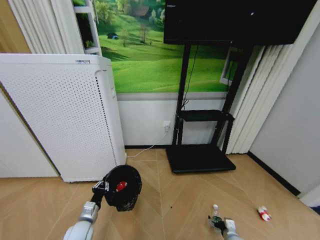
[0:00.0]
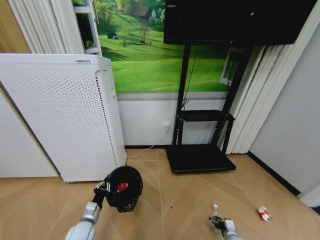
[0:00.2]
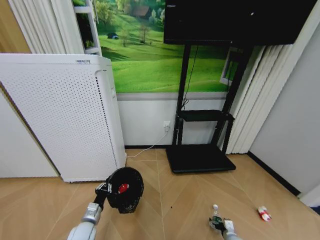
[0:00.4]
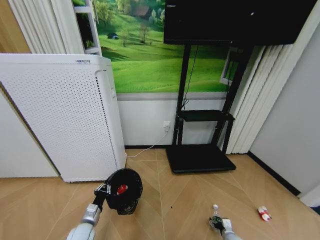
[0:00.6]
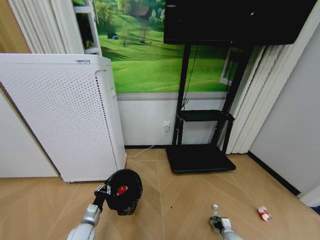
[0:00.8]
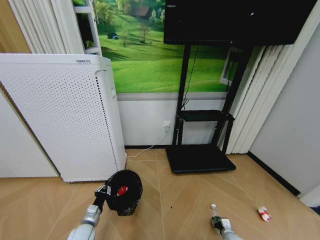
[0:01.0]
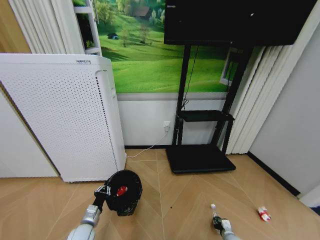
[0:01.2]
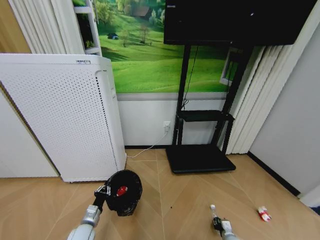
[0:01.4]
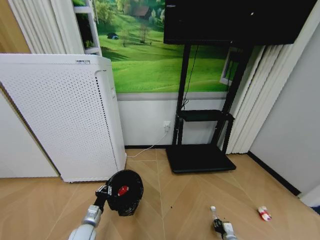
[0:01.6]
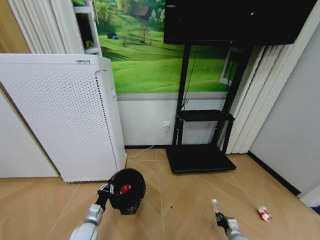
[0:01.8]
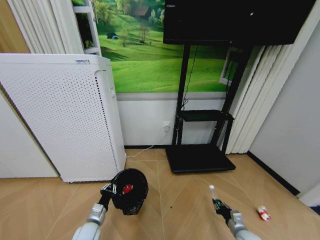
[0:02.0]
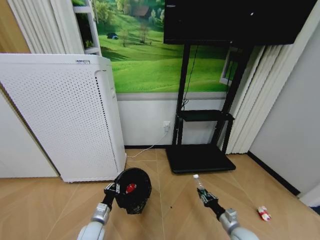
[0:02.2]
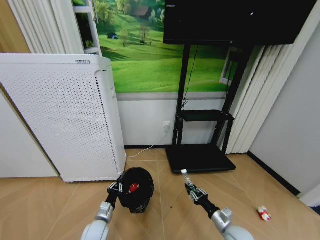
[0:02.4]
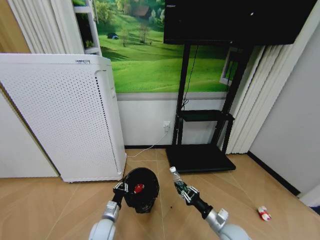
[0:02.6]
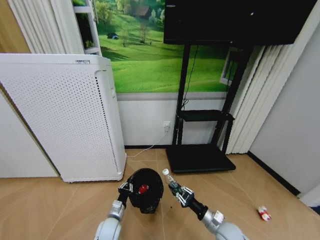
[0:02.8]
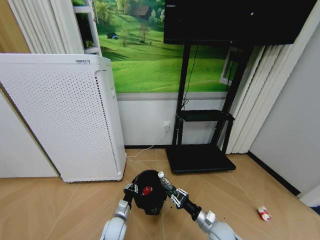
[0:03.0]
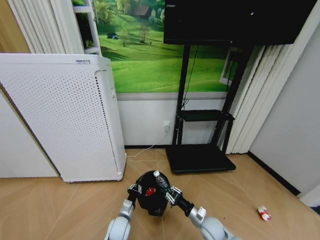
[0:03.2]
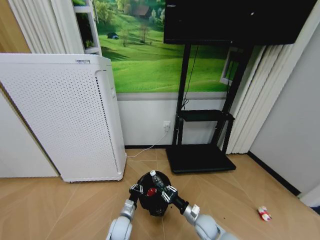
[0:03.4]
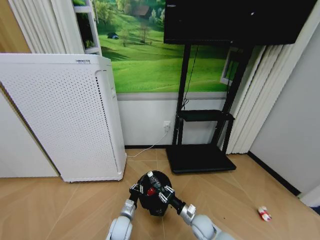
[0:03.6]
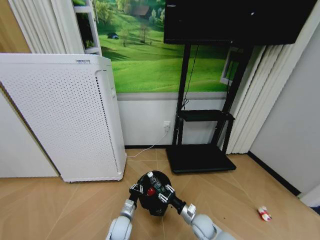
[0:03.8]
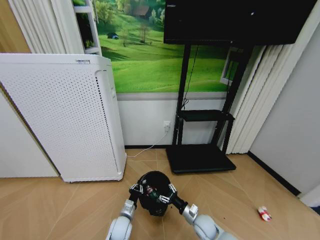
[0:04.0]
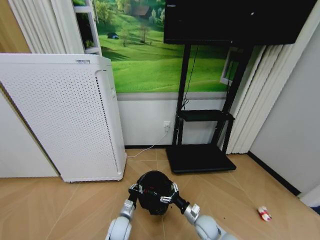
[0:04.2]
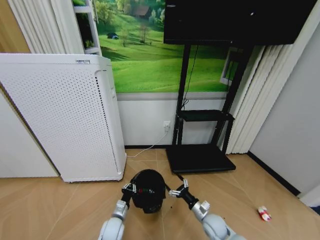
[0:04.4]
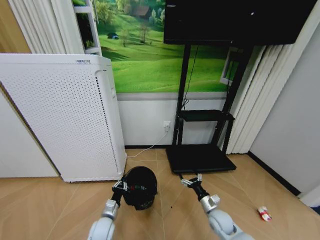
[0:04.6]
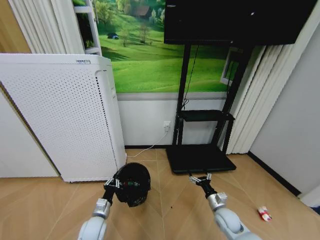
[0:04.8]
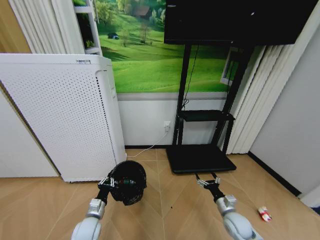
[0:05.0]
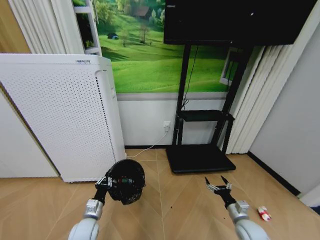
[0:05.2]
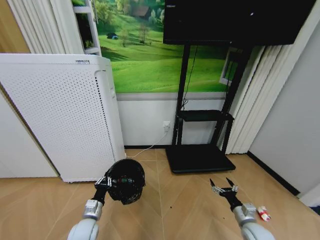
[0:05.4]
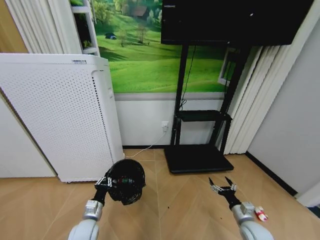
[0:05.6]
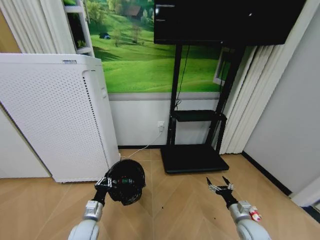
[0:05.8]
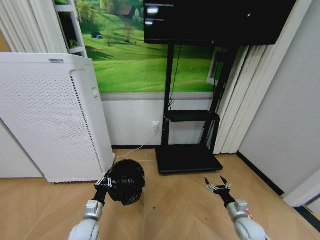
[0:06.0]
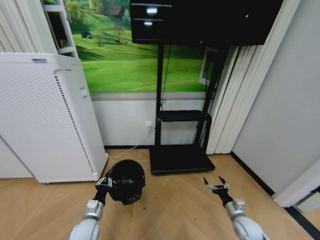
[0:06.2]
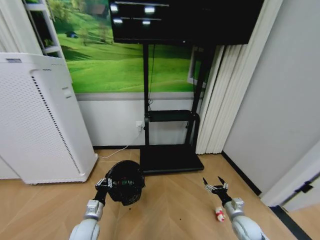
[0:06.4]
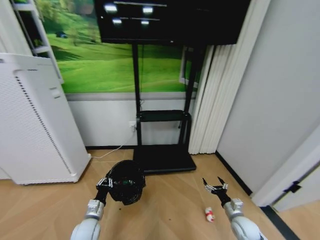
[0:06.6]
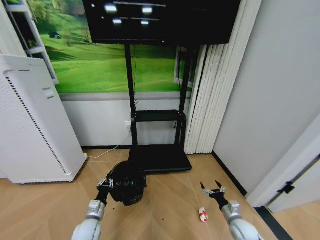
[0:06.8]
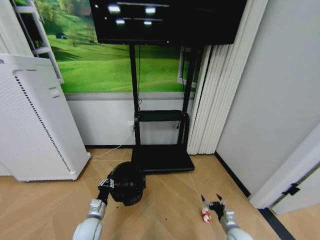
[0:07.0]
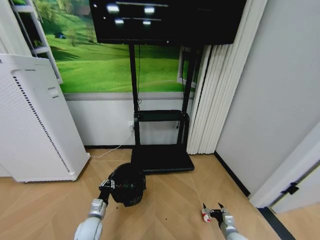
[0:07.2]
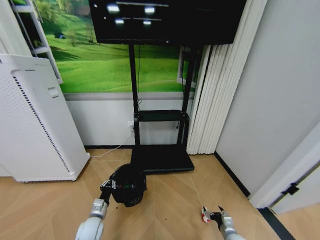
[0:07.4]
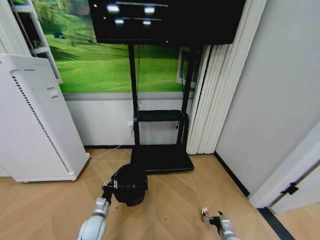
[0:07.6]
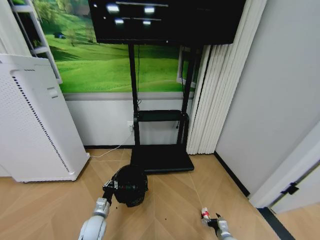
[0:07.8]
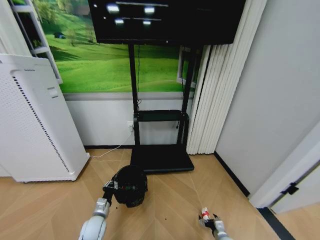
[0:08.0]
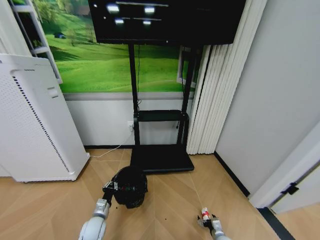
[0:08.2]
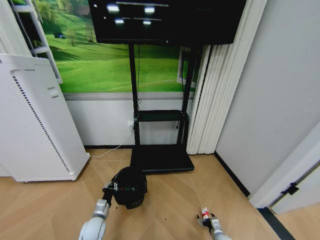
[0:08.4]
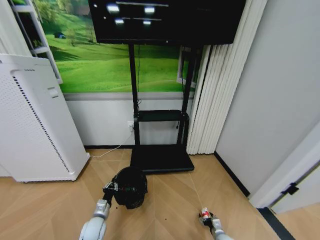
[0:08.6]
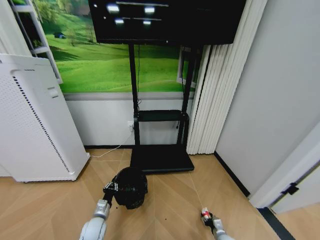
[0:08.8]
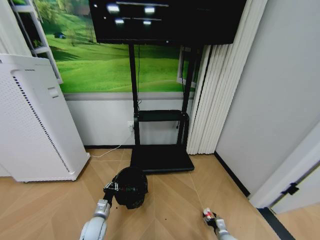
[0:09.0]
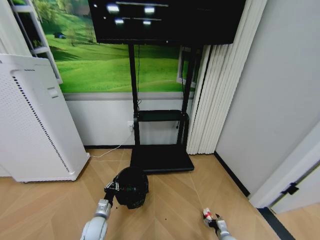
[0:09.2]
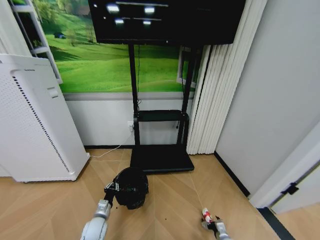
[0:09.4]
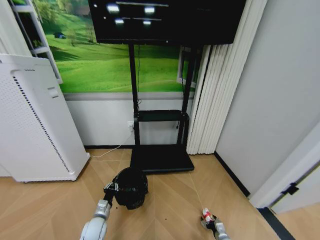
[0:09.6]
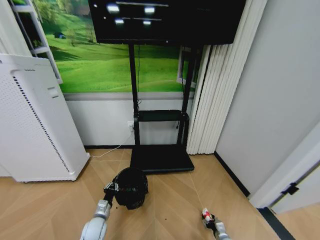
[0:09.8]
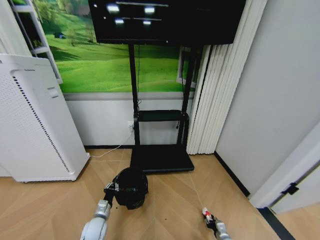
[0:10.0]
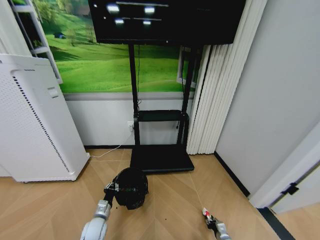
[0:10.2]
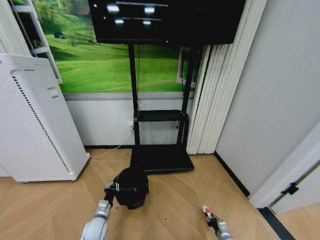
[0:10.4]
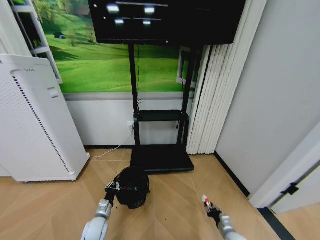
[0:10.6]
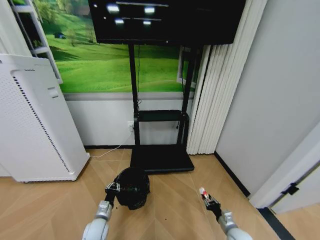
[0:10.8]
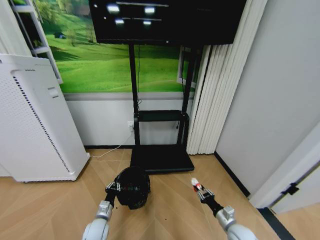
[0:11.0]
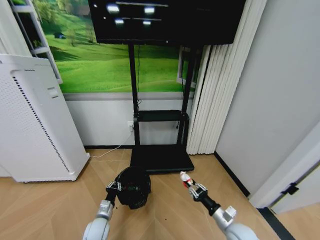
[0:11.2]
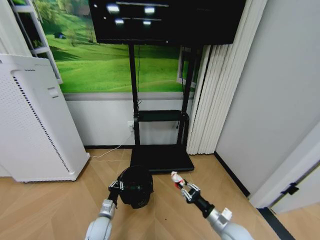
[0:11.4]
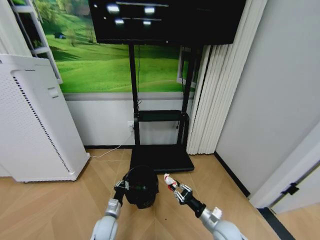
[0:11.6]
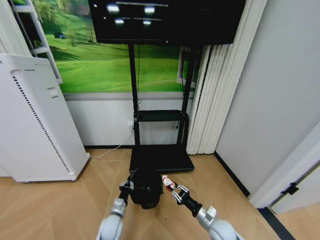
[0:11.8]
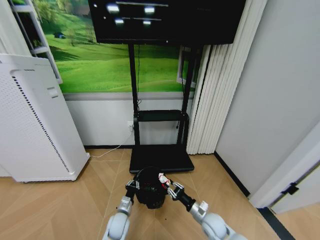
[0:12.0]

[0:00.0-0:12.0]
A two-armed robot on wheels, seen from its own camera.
Task of the whole recording: Pick up the trash bin and place the garbage on the floor into it.
0:00.0 to 0:01.6: The right gripper is displaced downward by some 5 cm, and closes its fingers.
0:01.6 to 0:03.0: The left gripper goes approximately 10 cm to the right. Meanwhile the right gripper shifts roughly 20 cm upward and to the left.
0:03.0 to 0:04.4: The right gripper opens.
0:04.4 to 0:06.0: The left gripper travels to the left and upward by about 10 cm, while the right gripper heads to the right, covering approximately 15 cm.
0:06.0 to 0:07.6: The right gripper travels downward by about 10 cm. Meanwhile the left gripper changes place by approximately 5 cm.
0:07.6 to 0:09.0: The right gripper ends up some 5 cm from where it was, and closes up.
0:09.0 to 0:10.4: The right gripper closes its fingers.
0:10.4 to 0:12.0: The left gripper heads to the right, covering about 10 cm; the right gripper is displaced upward and to the left by some 20 cm.

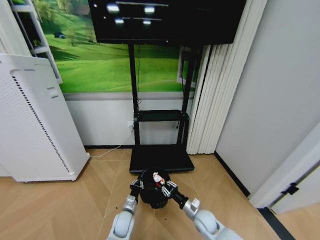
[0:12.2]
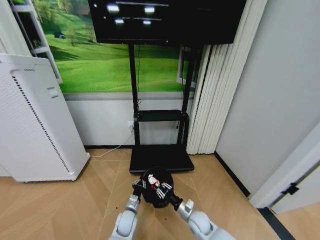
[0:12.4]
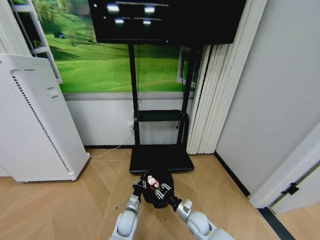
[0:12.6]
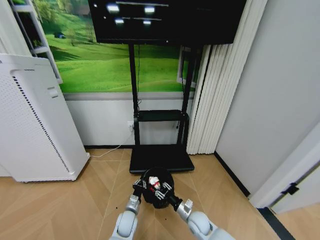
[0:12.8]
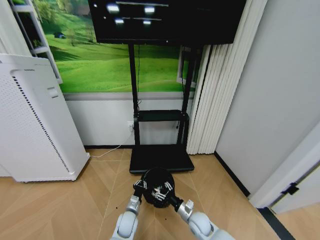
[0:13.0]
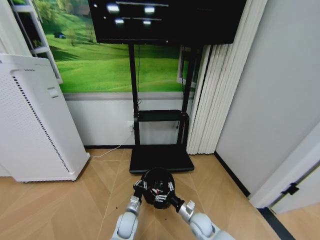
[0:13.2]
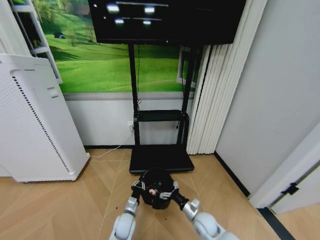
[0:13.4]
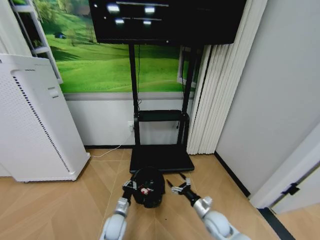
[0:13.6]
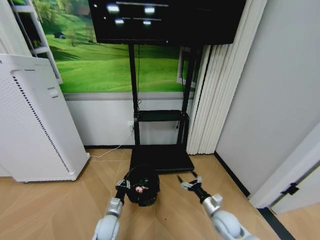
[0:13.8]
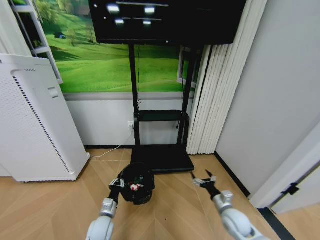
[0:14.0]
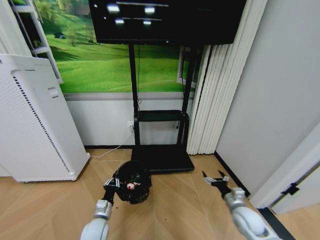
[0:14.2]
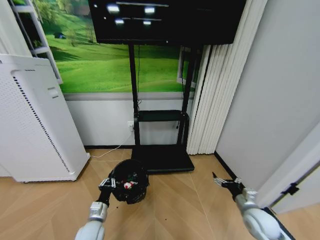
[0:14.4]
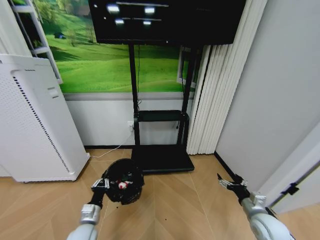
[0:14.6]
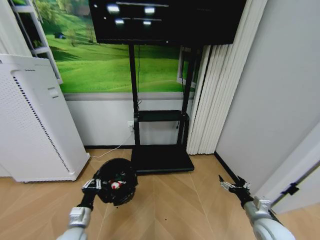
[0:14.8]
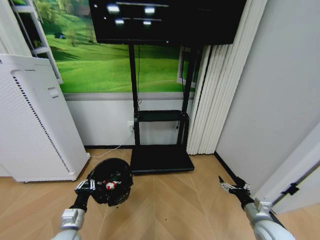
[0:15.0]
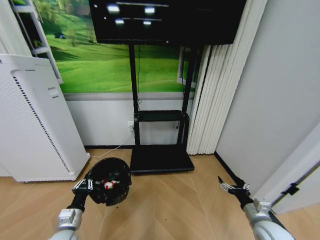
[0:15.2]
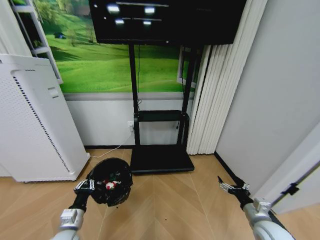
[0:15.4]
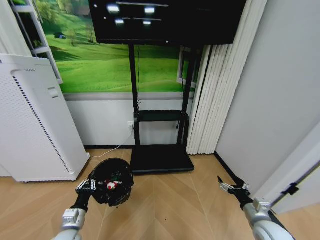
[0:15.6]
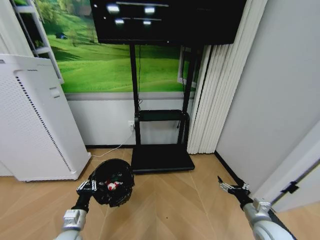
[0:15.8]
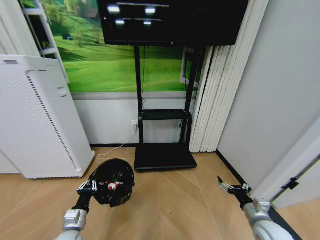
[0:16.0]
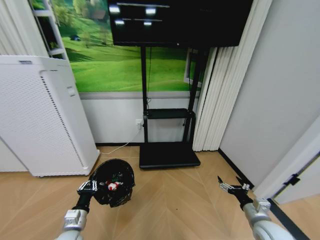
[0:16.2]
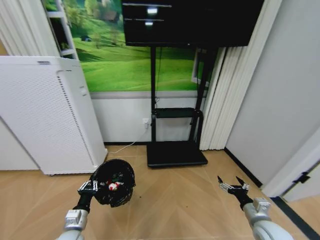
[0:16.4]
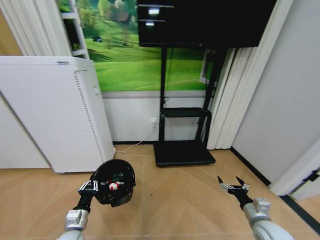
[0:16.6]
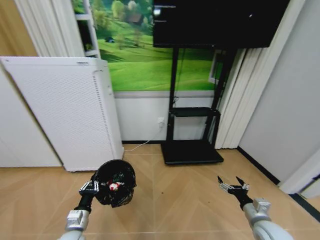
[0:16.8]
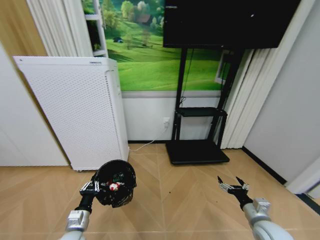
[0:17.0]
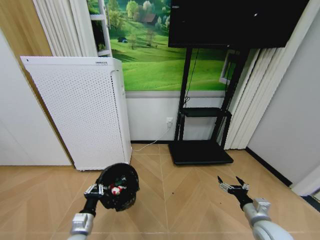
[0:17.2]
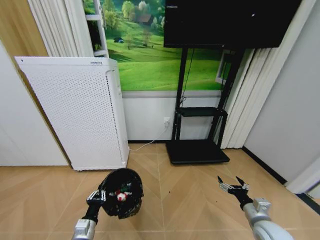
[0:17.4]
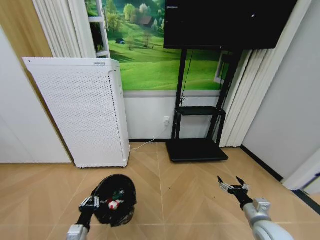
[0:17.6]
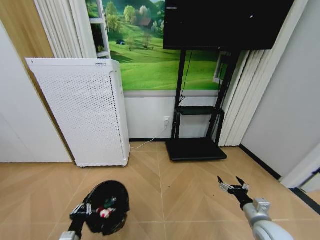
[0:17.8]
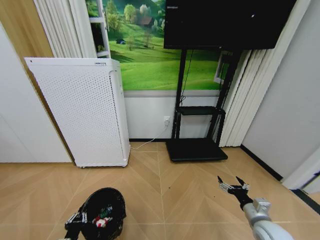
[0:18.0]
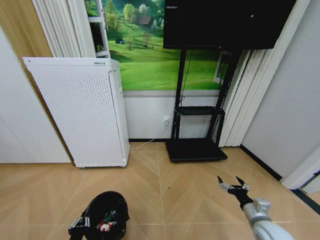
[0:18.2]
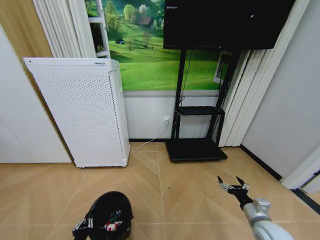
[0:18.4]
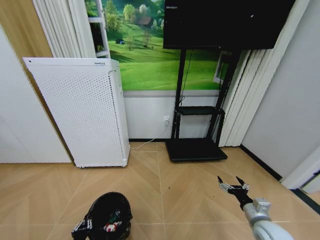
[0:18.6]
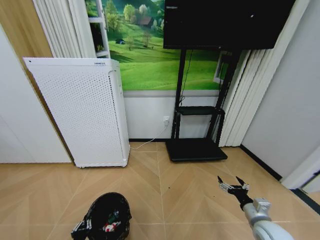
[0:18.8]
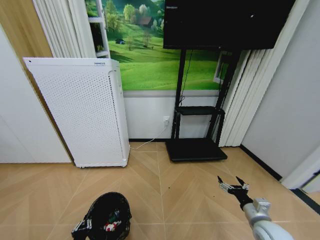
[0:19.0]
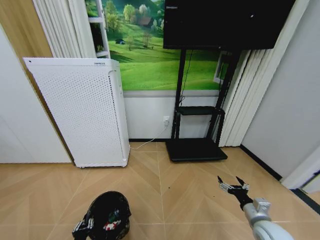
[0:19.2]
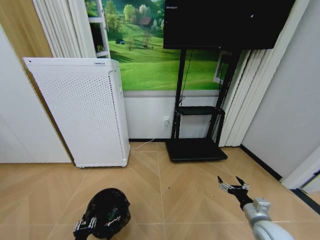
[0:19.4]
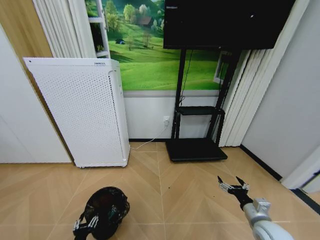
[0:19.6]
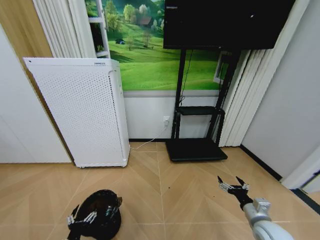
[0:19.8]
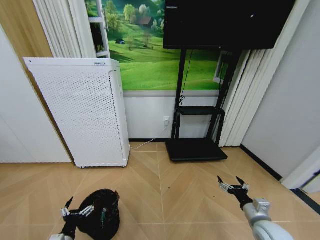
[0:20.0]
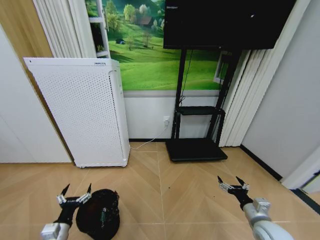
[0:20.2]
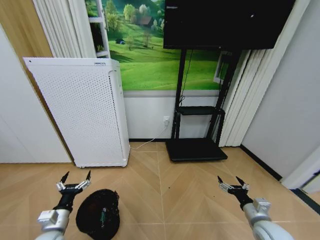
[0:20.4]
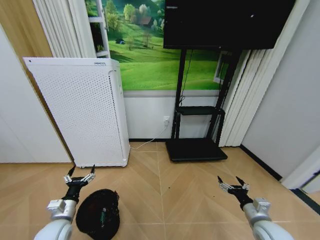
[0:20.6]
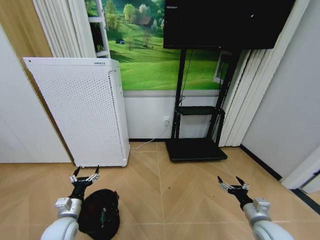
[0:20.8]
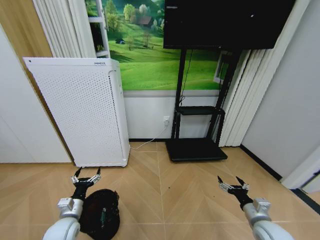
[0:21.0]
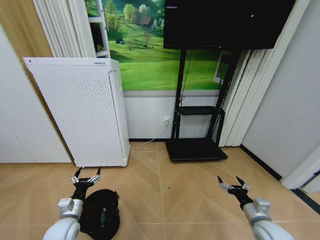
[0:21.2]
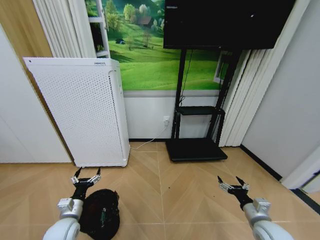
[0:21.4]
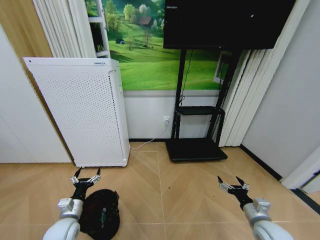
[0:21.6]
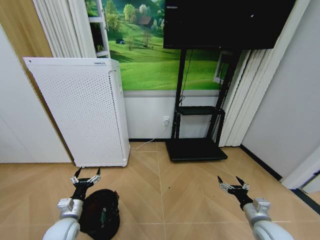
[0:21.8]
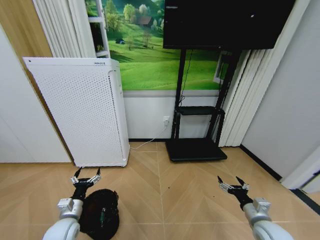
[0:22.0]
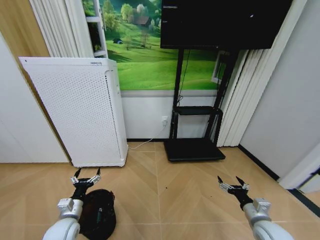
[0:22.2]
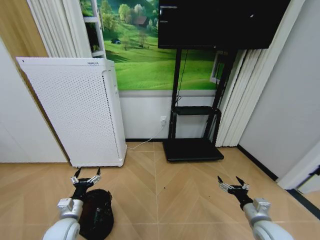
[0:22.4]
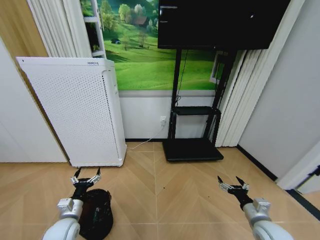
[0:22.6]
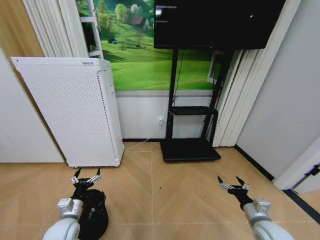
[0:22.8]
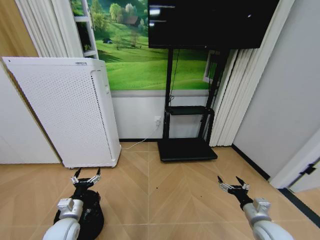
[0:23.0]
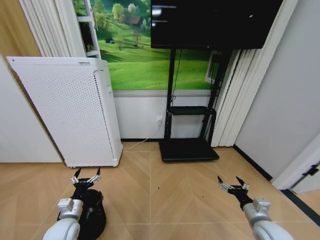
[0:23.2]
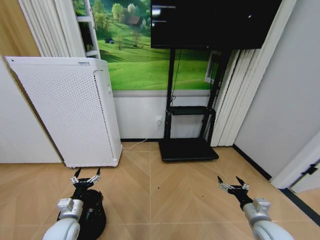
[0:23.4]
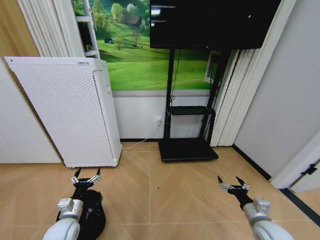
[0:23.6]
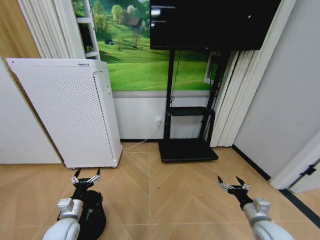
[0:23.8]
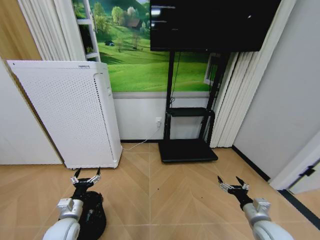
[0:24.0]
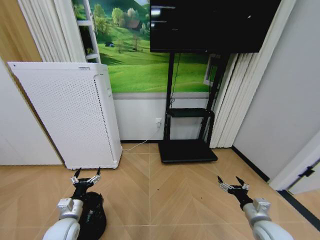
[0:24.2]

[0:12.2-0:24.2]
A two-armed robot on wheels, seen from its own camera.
Task of the whole recording: Pick up the trash bin and place the garbage on the floor into it.
0:12.2 to 0:13.8: The left gripper goes roughly 5 cm to the left; the right gripper heads to the right, covering some 5 cm, and opens up.
0:13.8 to 0:15.2: The left gripper goes about 15 cm to the left, upward and backward. The right gripper shifts some 15 cm to the right, upward and backward.
0:16.6 to 0:18.2: The left gripper shifts approximately 10 cm backward and downward.
0:18.2 to 0:19.8: The left gripper opens.
0:19.8 to 0:21.2: The left gripper heads forward and upward, covering some 15 cm.
0:21.2 to 0:22.6: Both grippers stay about where they are.
